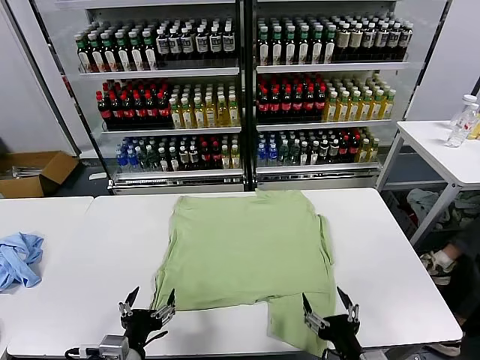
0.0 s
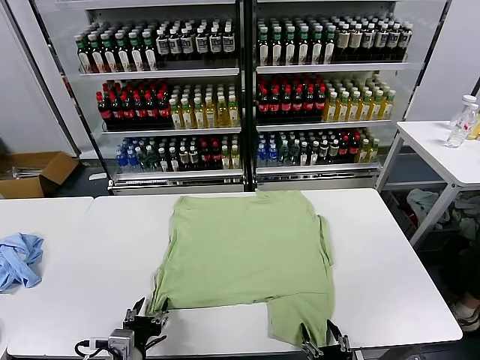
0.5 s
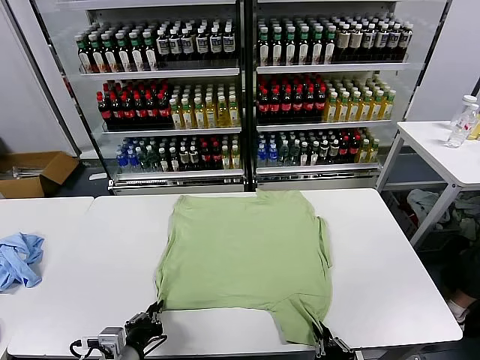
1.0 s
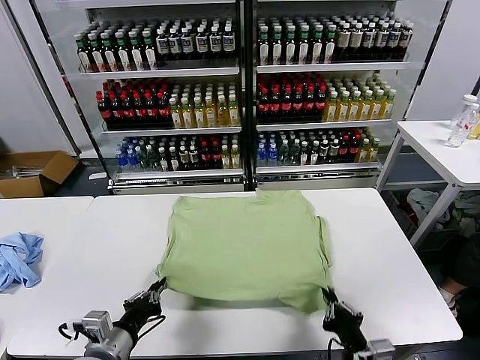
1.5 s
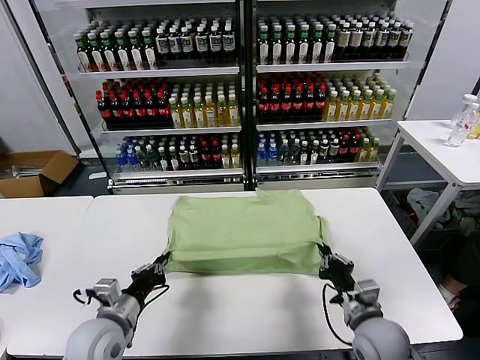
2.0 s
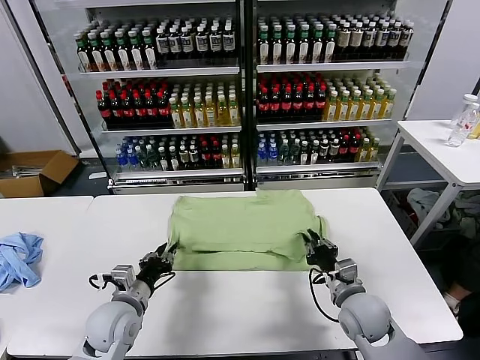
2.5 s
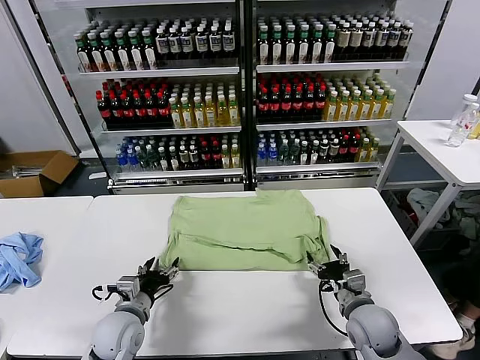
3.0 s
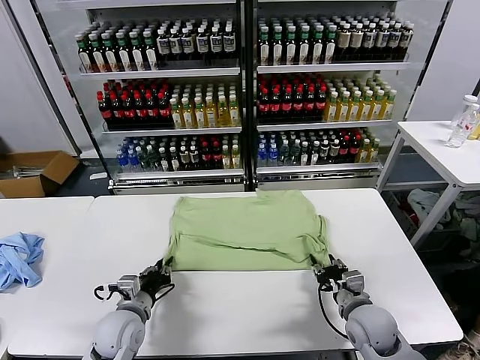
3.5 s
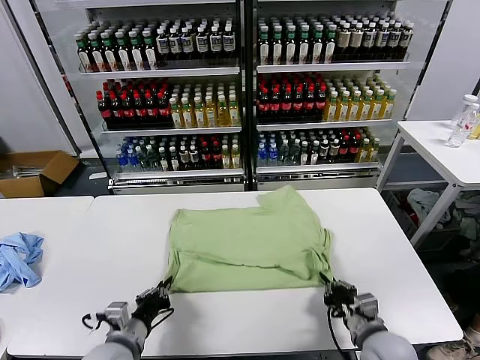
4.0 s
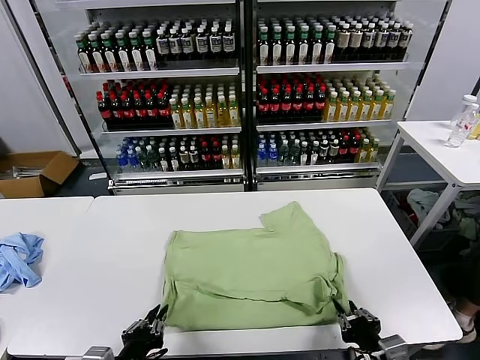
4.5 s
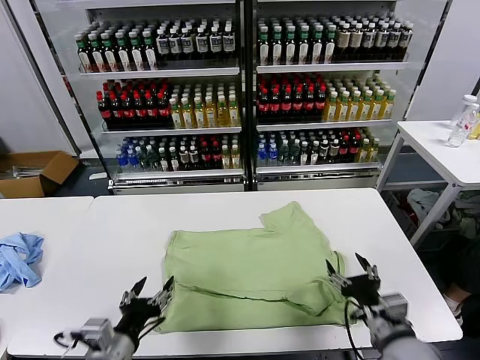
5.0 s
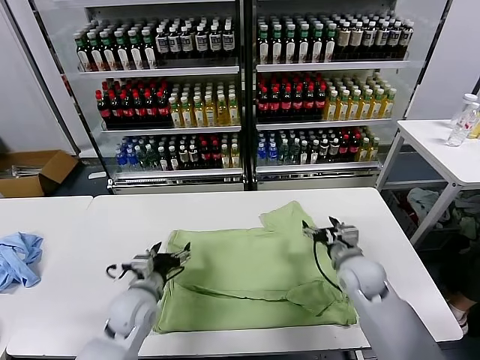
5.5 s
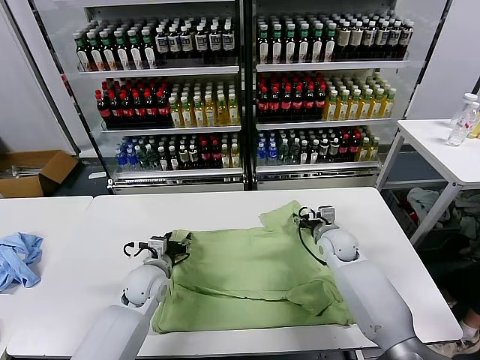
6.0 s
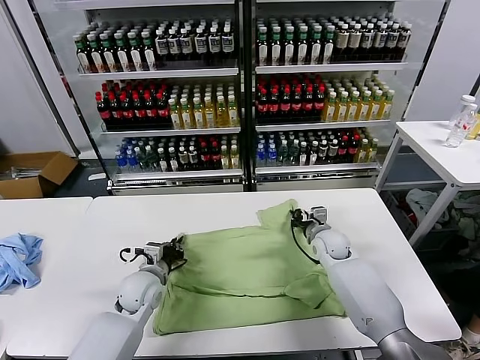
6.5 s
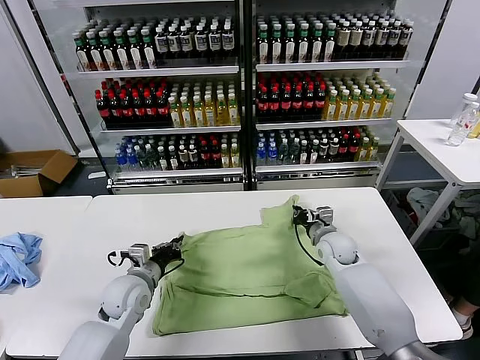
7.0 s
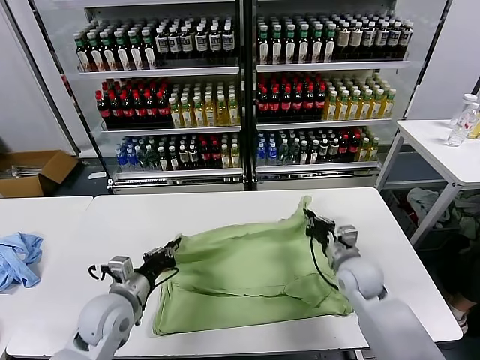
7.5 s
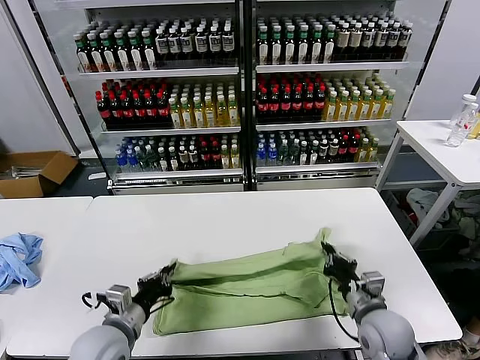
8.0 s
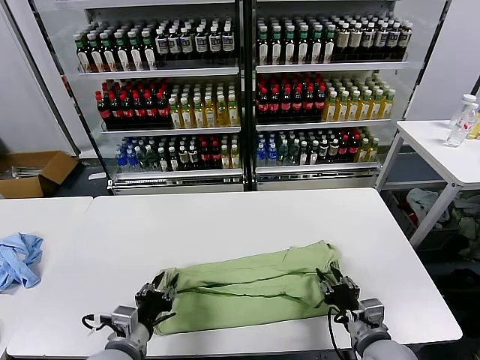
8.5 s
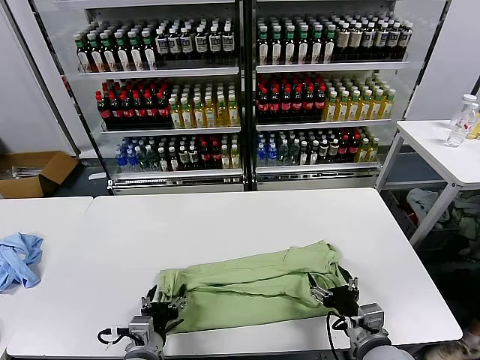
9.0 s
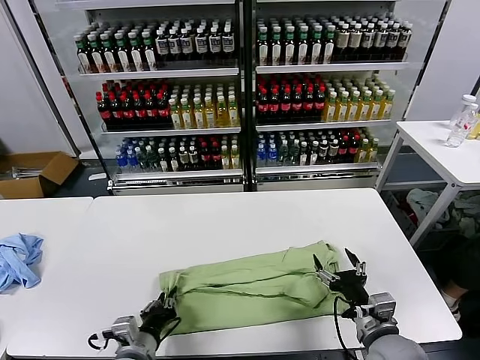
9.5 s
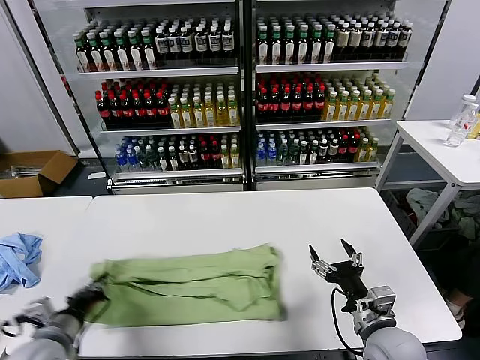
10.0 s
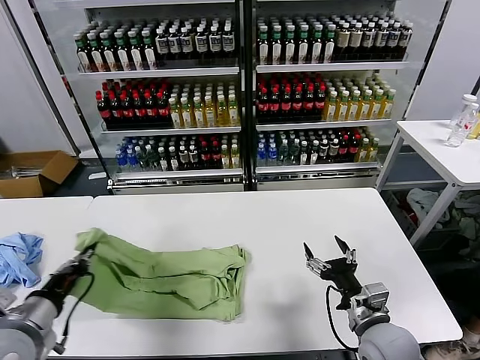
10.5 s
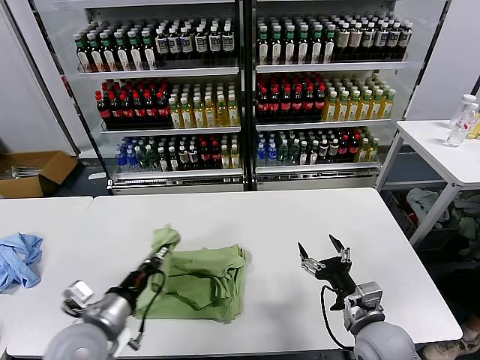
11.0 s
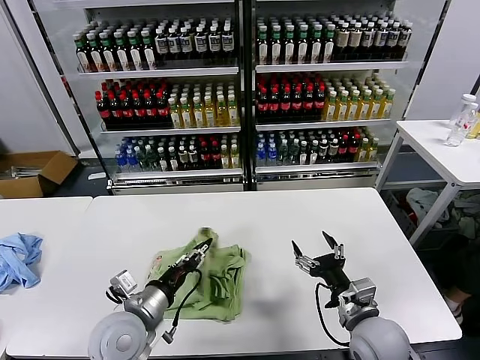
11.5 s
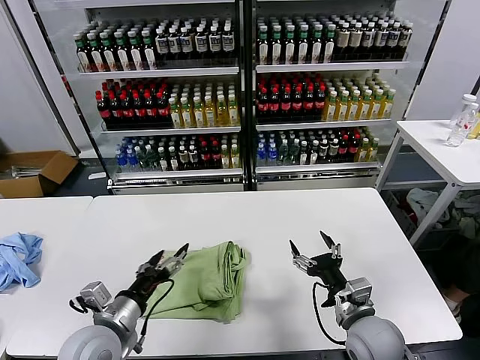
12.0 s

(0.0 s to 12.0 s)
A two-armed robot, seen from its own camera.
Task of the whole recording: fold and organize the clothes.
Step, 0.0 s - 1.0 s: use both grippers simultaneously to clamp the lower edge of the clothing fabric.
Step, 1.5 s - 2.5 s: use both grippers to drag the lower edge of the fabric forward and fold it over the upper edge.
Step, 3.0 s - 4.5 s: Drag the clothes downward with both gripper.
Step, 5.0 s - 6.5 s: use both grippers simultaneously to clamp the upper edge of the clothing fabric.
Step, 7.0 s - 8.5 s: use both grippers to drag the upper edge of the fabric backward and fold it over the lower edge.
Step, 9.0 s - 9.5 s: use the left gripper to clamp the left edge of the fabric.
Step, 10.0 s - 11.5 s: use the left gripper to drag the left edge of the fabric to the left and folds it over the right edge.
2.0 s - 4.0 s: The left gripper changes place by about 5 cm, and opens, then closes once more. The right gripper goes some 10 cm backward, and opens and closes again.
4.0 s - 6.0 s: The left gripper heads forward, covering approximately 20 cm, and opens. Meanwhile the right gripper is displaced forward by some 30 cm, and opens.
6.0 s - 8.0 s: The left gripper is displaced backward by approximately 15 cm, and closes up. Meanwhile the right gripper heads backward, covering about 25 cm, and closes up.
8.0 s - 10.0 s: The left gripper shifts roughly 10 cm to the left, and opens, then closes again; the right gripper opens up.
10.0 s - 12.0 s: The left gripper heads to the right, covering some 10 cm, and opens up.

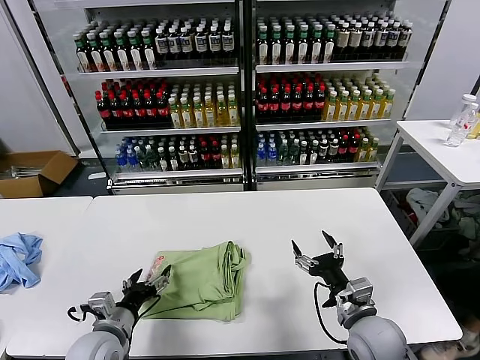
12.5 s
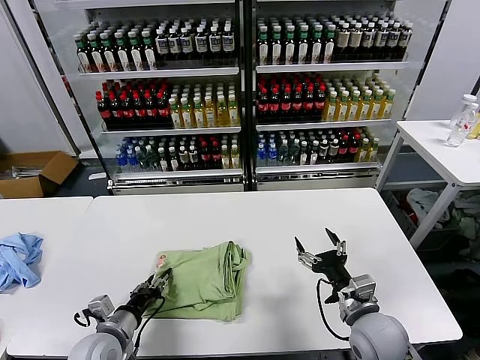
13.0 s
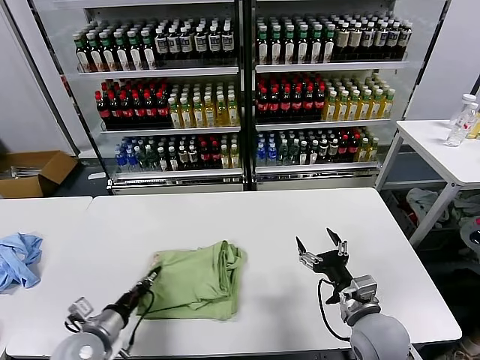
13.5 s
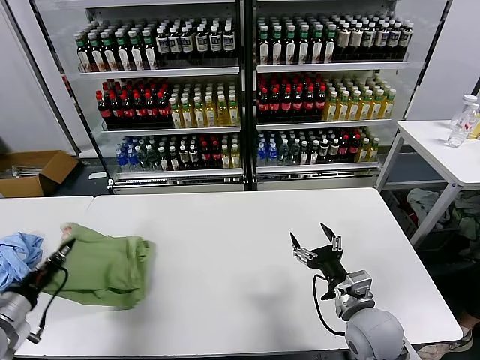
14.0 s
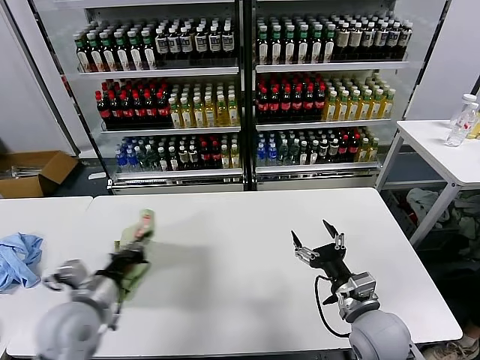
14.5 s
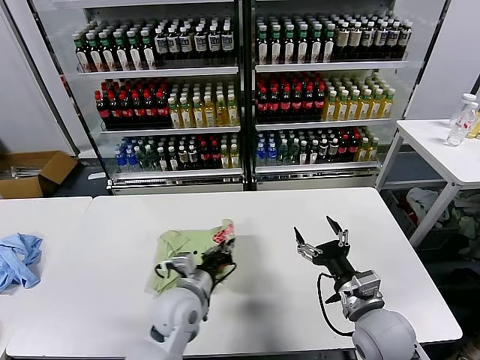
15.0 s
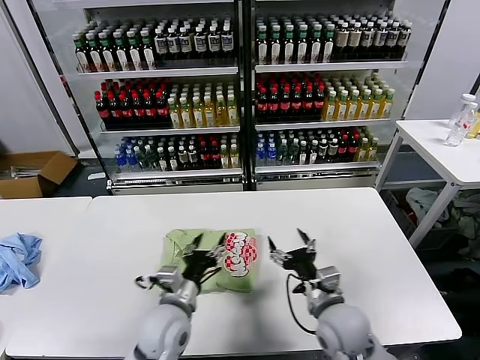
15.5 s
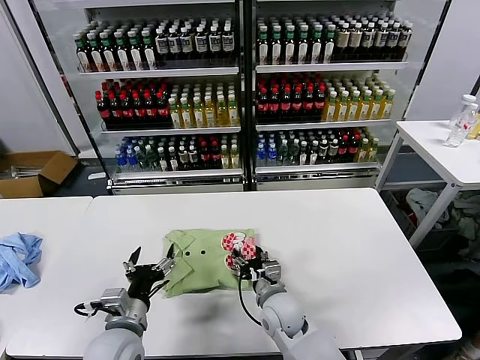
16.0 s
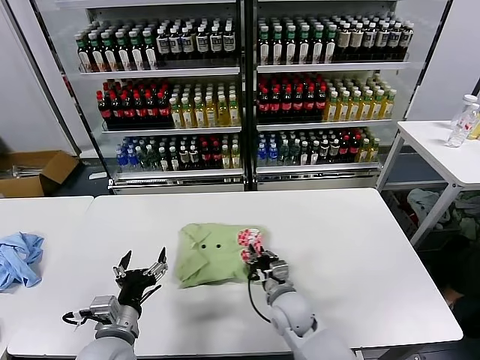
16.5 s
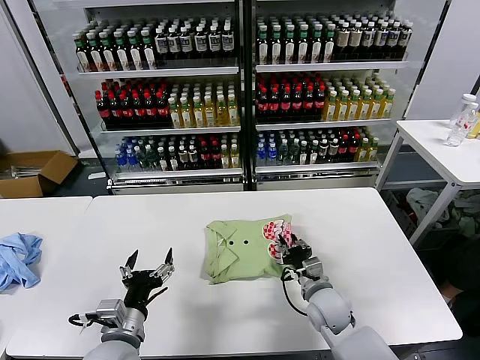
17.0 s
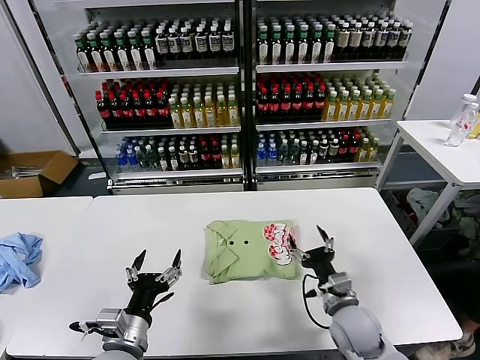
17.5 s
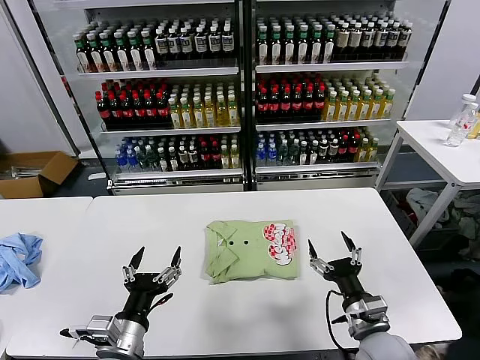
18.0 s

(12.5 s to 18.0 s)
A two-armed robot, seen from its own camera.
Task of the whole recording: fold and organize the clothes.
Step, 12.5 s - 15.0 s: Flip the folded clothes over with left gripper.
Step, 15.5 s - 17.0 s: Drag the clothes to the center of the table.
12.5 s - 14.5 s: The left gripper shifts about 10 cm upward, goes to the left and returns, roughly 15 cm each way, and closes its fingers.
14.5 s - 16.0 s: The right gripper travels to the left, downward and forward by about 20 cm. Meanwhile the left gripper travels to the right and downward by about 10 cm, and opens its fingers.
16.0 s - 18.0 s: The left gripper travels backward by roughly 5 cm; the right gripper moves to the right and backward, approximately 20 cm, and closes and opens again.

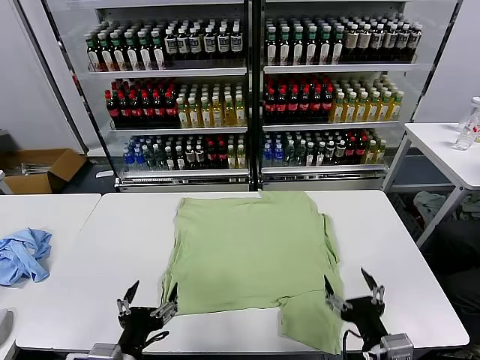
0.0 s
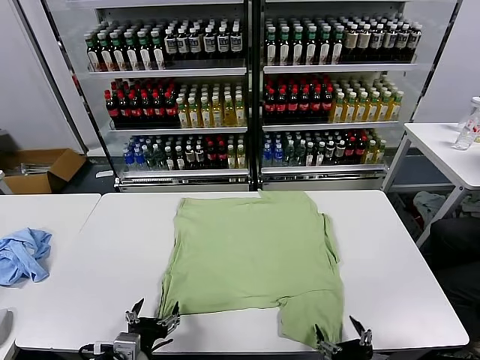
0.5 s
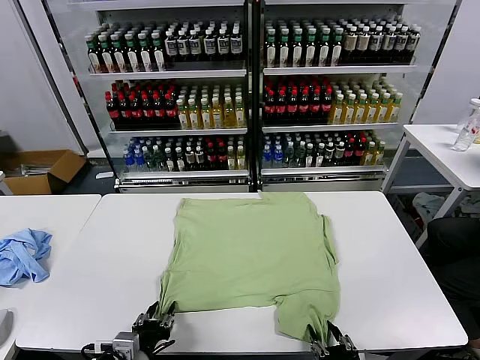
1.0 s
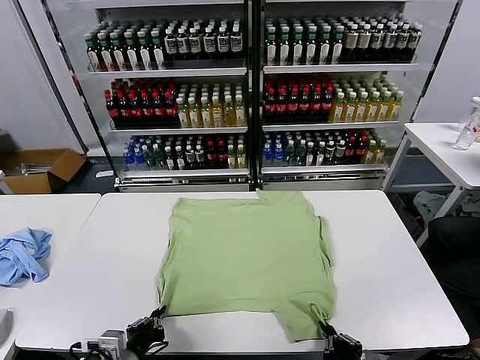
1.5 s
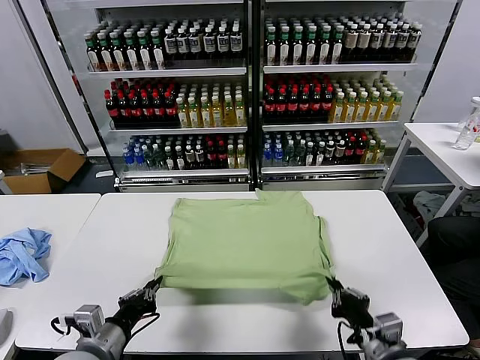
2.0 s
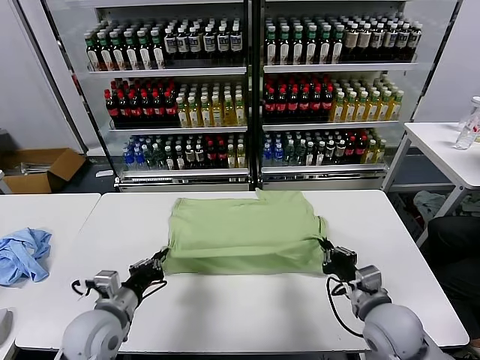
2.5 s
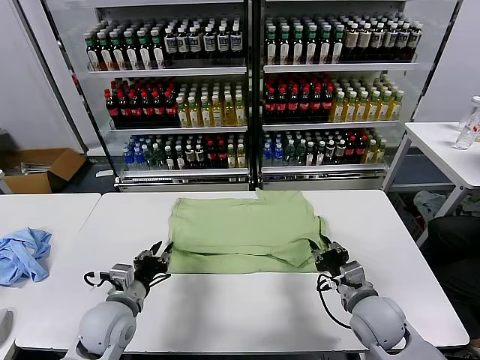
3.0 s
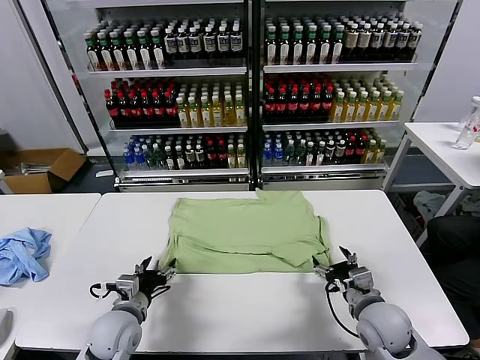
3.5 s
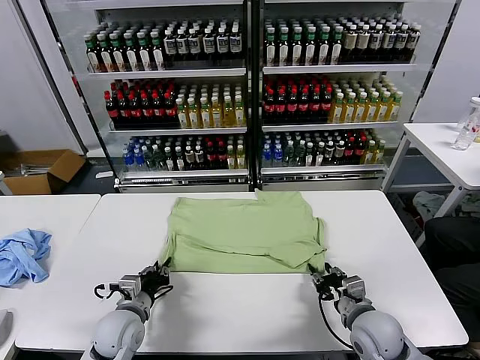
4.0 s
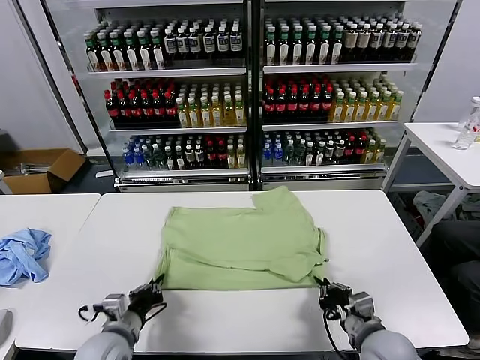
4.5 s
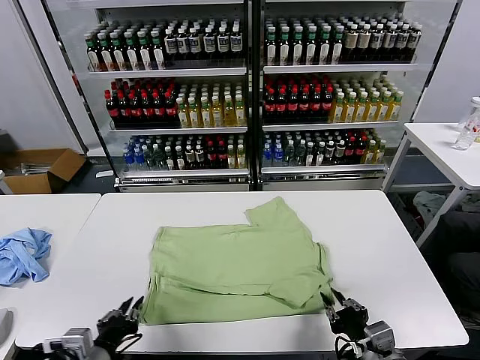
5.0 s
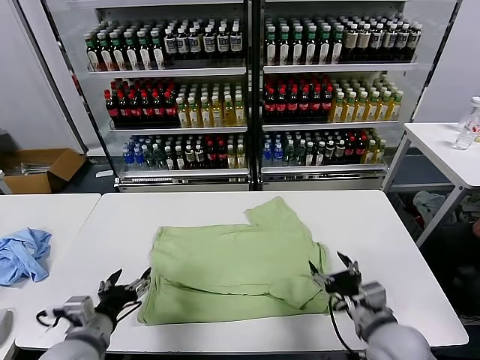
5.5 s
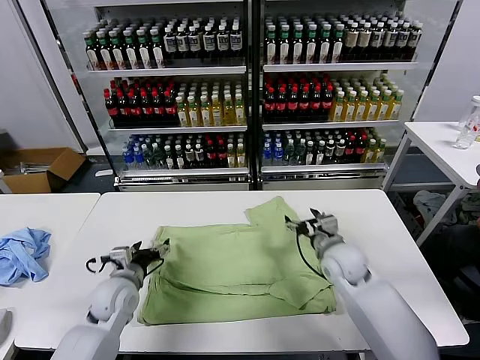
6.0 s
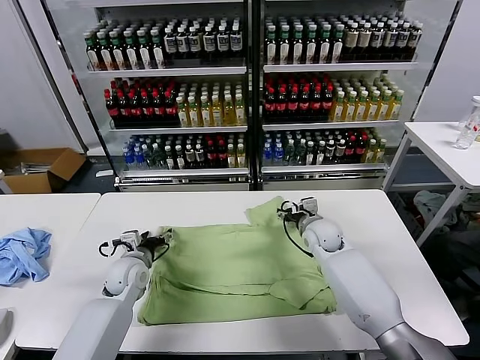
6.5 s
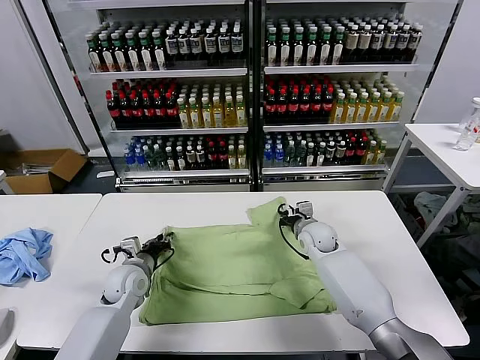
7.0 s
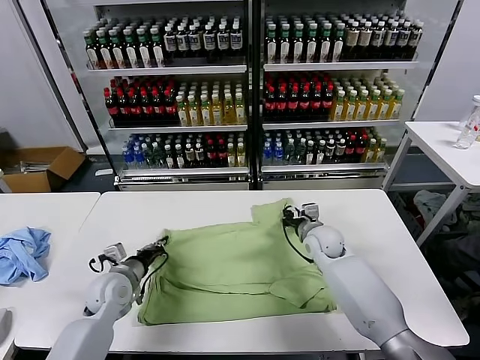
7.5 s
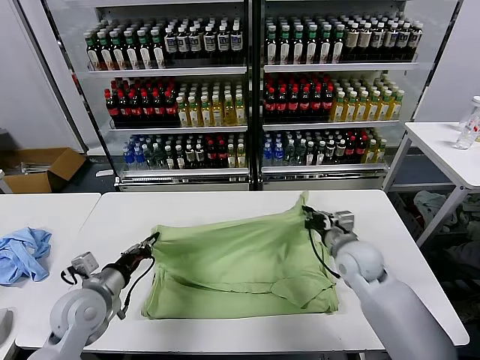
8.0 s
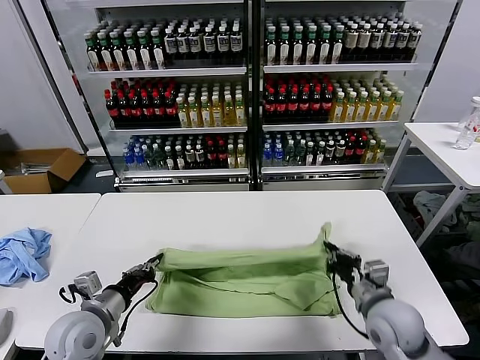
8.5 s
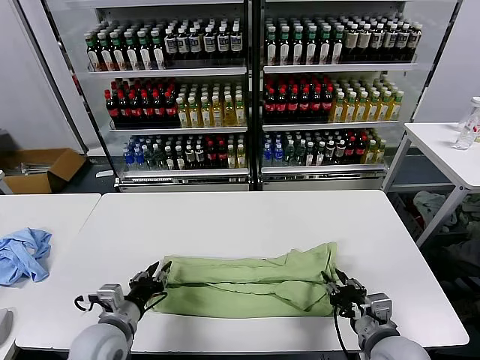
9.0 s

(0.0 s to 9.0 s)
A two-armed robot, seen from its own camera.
Task of the whole recording: fold and organize the clothes.
Step, 0.0 s - 1.0 s: use both grippers simultaneously to clamp the lower edge of the clothing fabric.
Step, 2.0 s - 3.0 s: use both grippers to drag the lower edge of the fabric forward and fold it over the upper edge.
Step, 3.5 s - 5.0 s: Drag the clothes downward with both gripper.
Step, 5.5 s - 7.0 s: use both grippers simultaneously to clamp the upper edge of the clothing fabric.
Step, 7.5 s - 8.5 s: use both grippers to drag the upper edge of the fabric backward and fold it over the lower edge.
2.0 s - 4.5 s: The right gripper travels forward and back again, roughly 10 cm each way, and opens, then closes again. The left gripper heads downward, covering roughly 5 cm, and opens and closes again.
4.5 s - 7.0 s: The left gripper heads forward, covering approximately 15 cm, and opens and closes again. Meanwhile the right gripper goes roughly 30 cm forward, and opens, then closes once more.
7.0 s - 9.0 s: The left gripper goes about 15 cm backward. The right gripper shifts some 30 cm backward.
